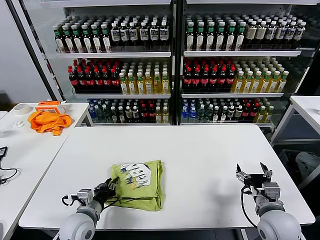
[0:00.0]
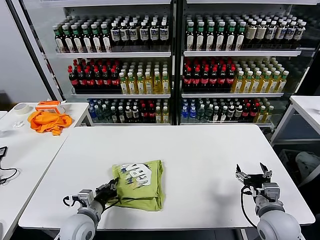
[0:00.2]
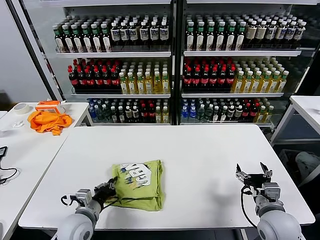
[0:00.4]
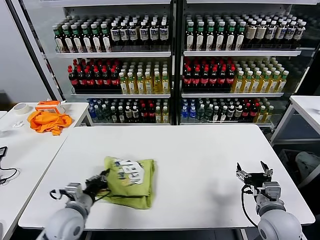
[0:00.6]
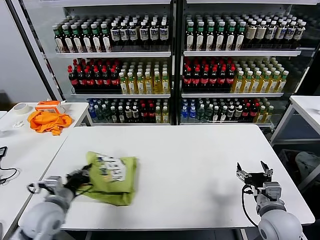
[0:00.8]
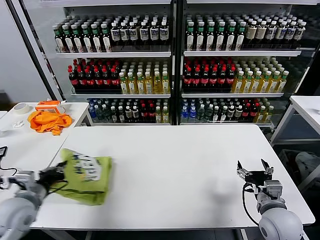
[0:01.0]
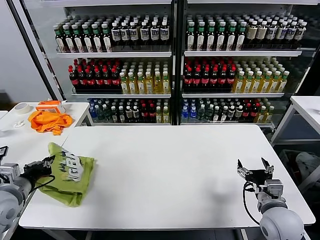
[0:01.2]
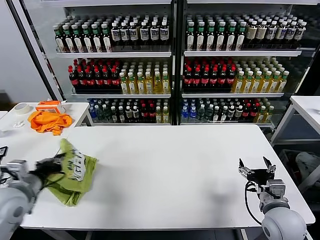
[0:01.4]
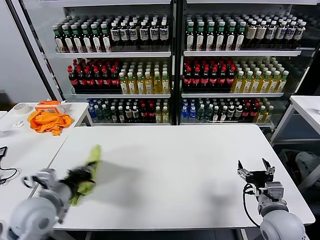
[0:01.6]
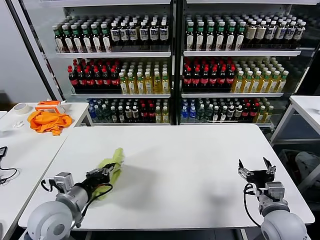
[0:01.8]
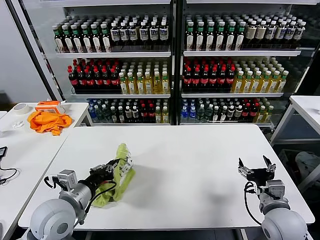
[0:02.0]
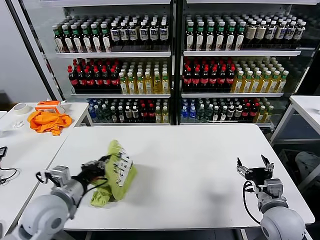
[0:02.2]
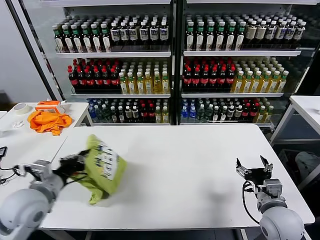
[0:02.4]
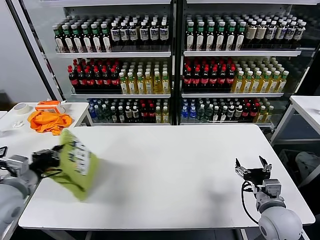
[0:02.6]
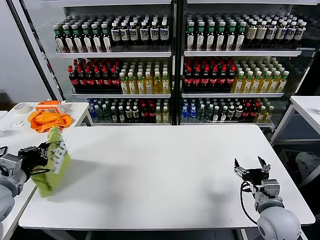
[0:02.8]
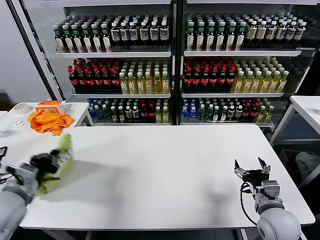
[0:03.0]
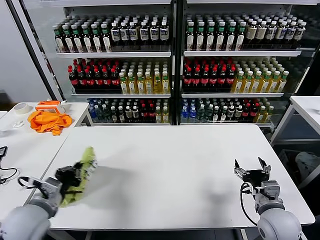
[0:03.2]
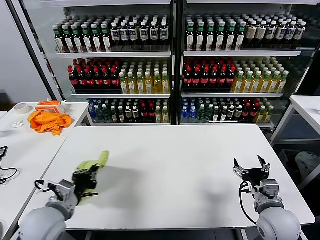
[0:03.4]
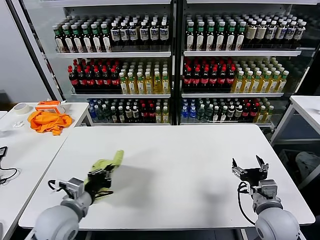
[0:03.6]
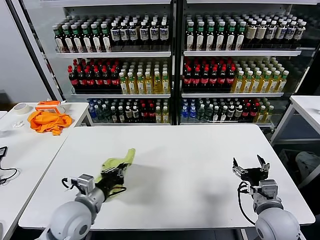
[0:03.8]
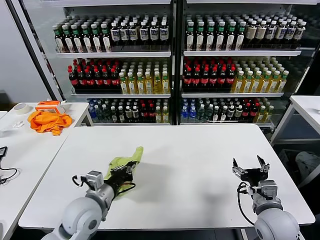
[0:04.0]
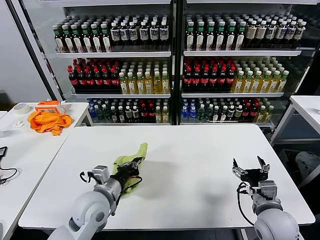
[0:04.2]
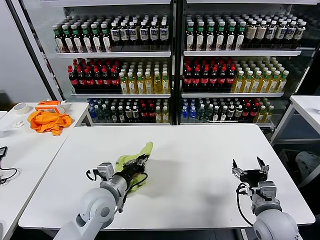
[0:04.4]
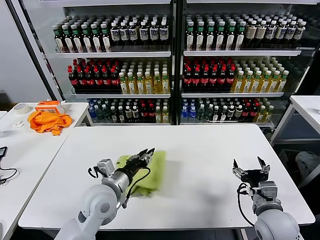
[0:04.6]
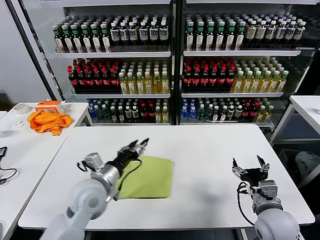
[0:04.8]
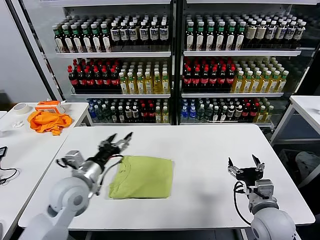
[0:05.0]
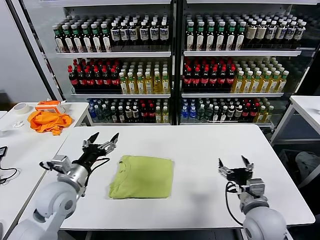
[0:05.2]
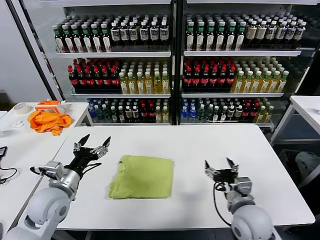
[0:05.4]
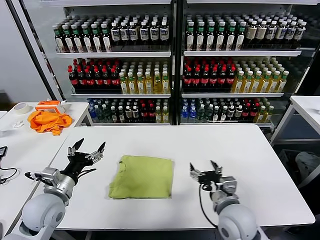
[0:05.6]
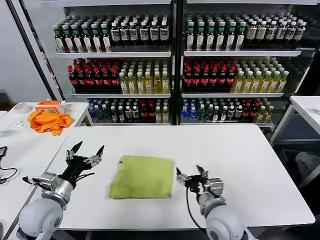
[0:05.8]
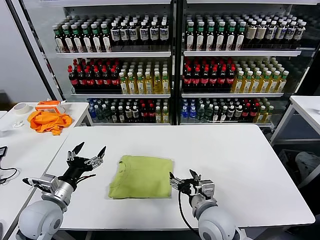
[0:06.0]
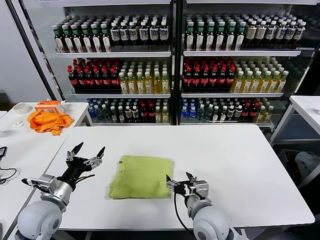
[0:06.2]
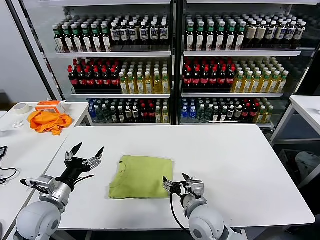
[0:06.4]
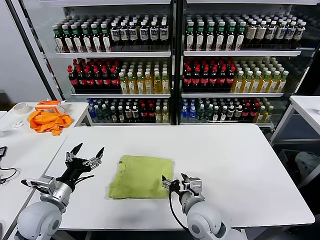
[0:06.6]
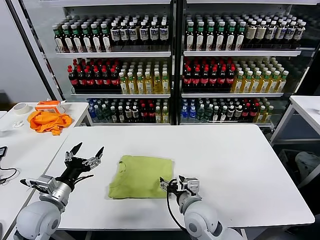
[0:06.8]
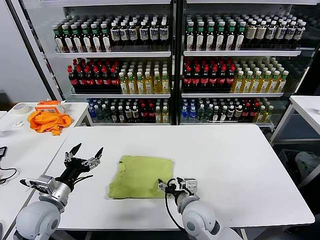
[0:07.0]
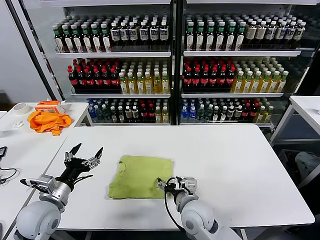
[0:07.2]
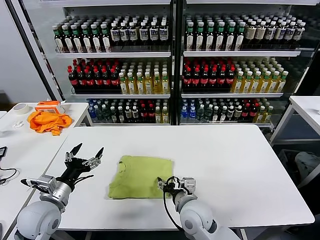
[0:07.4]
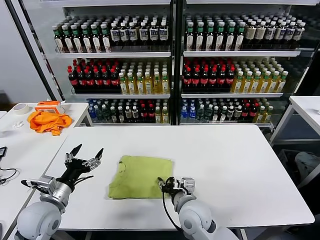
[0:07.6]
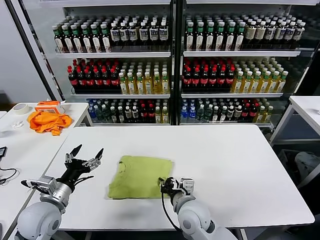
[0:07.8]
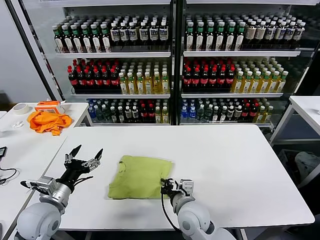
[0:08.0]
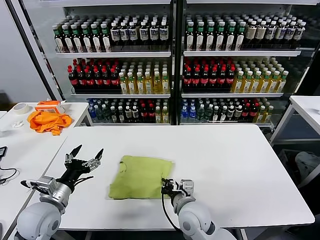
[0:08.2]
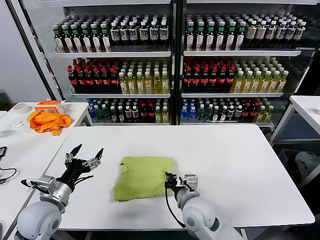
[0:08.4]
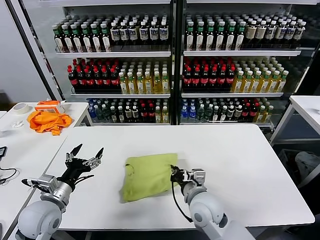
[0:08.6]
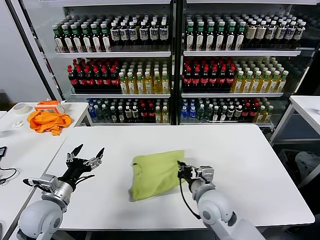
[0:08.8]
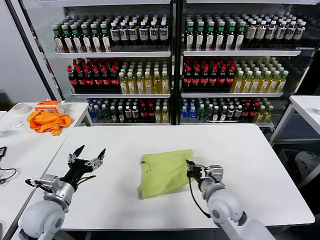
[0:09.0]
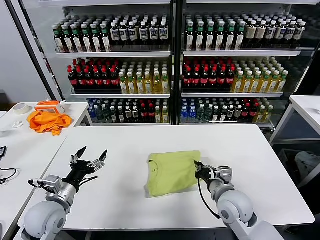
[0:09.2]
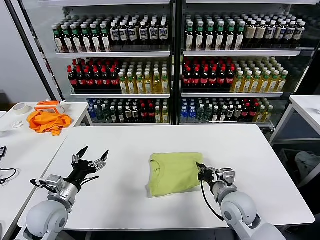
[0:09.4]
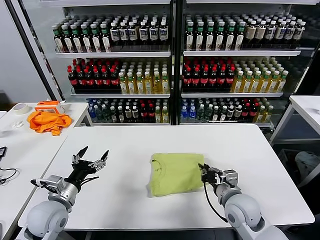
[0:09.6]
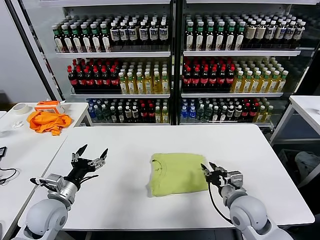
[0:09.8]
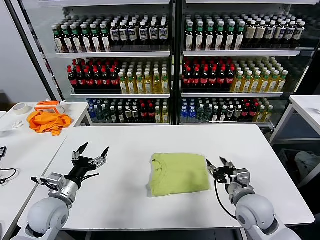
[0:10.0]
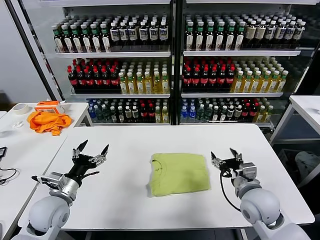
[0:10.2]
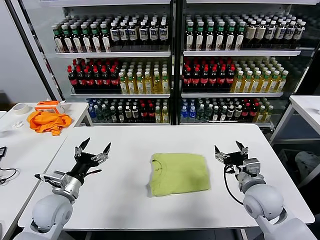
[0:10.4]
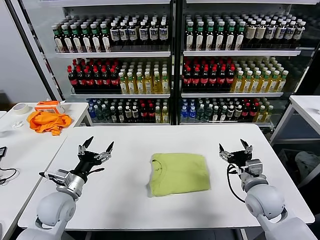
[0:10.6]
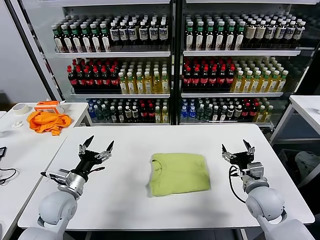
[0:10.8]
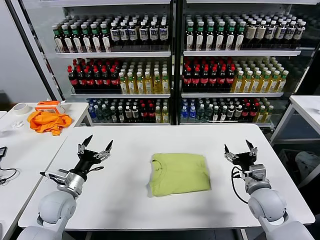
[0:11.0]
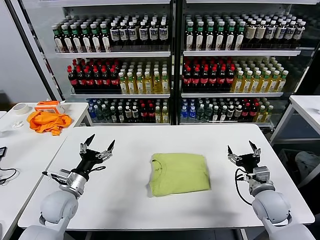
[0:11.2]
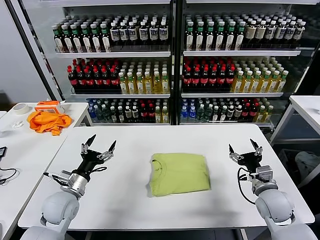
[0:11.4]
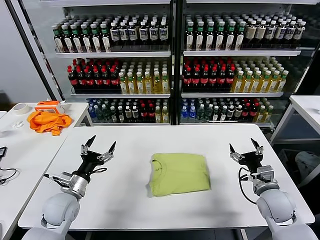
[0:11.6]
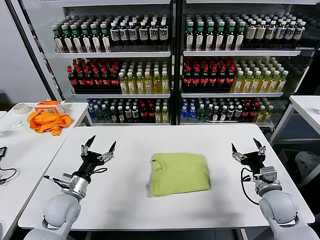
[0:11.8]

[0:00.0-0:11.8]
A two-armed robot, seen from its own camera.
Task of the whole recording: fold and organize the clothes.
Step, 0:00.0 to 0:04.6: Flip the folded clothes over with left gripper.
Step, 0:04.8 to 0:09.6: Drag the clothes to the center of the table.
0:00.0 to 0:01.4: The left gripper moves upward and to the left, some 20 cm, and closes.
0:01.4 to 0:03.0: The left gripper moves some 15 cm to the right and comes back.
0:03.0 to 0:04.4: The left gripper shifts about 20 cm to the right.
0:04.4 to 0:06.0: Both grippers move to the left, roughly 15 cm. The left gripper opens.
0:06.0 to 0:07.4: The right gripper ends up approximately 5 cm from where it was.
0:07.4 to 0:08.8: The right gripper shifts by about 5 cm, and closes its fingers.
0:08.8 to 0:10.4: The right gripper moves to the right, about 15 cm, and opens its fingers.
0:10.4 to 0:11.8: The right gripper goes approximately 5 cm to the right.
